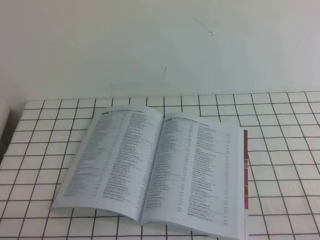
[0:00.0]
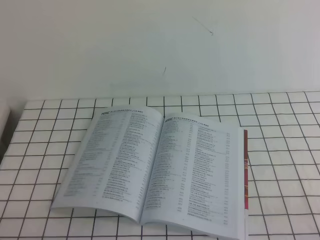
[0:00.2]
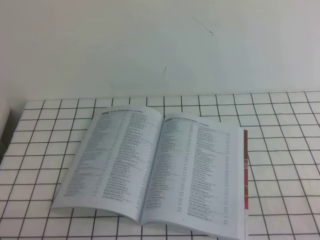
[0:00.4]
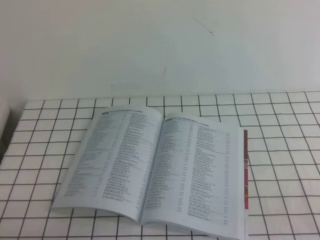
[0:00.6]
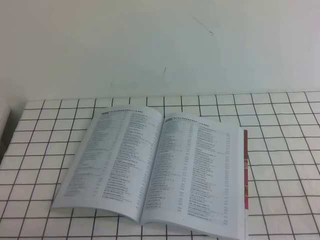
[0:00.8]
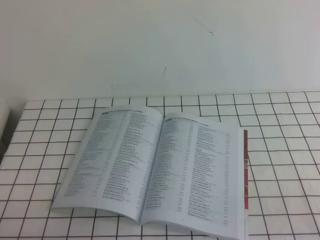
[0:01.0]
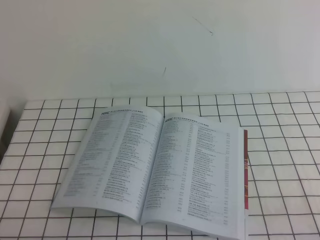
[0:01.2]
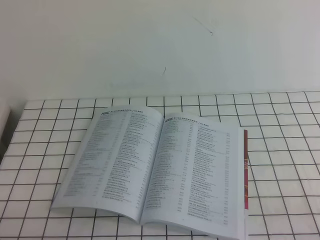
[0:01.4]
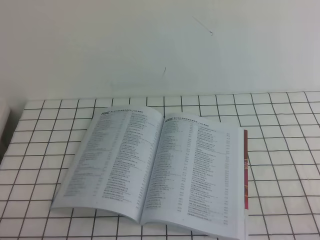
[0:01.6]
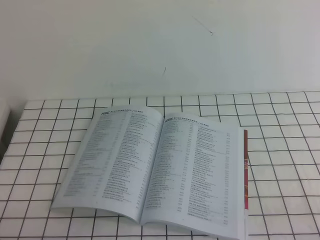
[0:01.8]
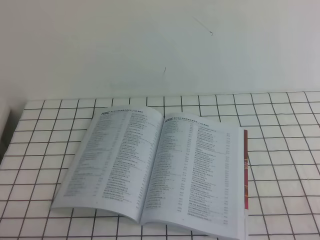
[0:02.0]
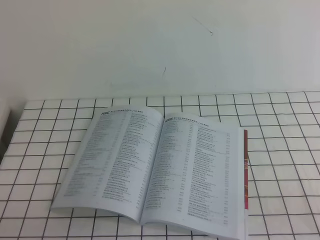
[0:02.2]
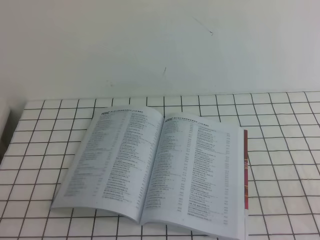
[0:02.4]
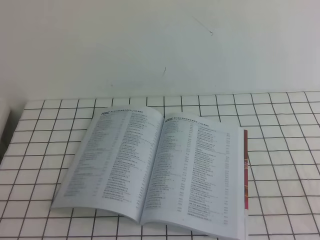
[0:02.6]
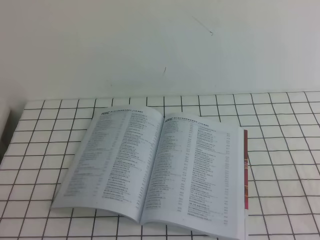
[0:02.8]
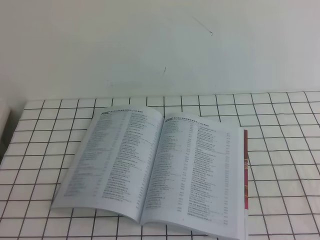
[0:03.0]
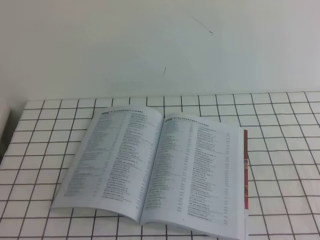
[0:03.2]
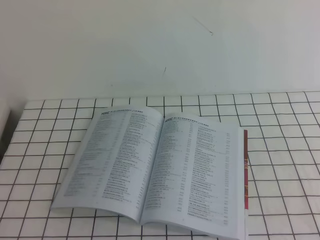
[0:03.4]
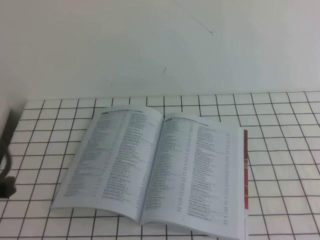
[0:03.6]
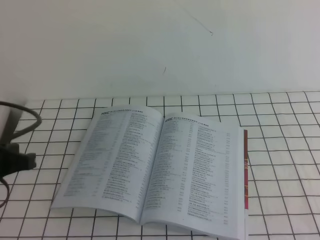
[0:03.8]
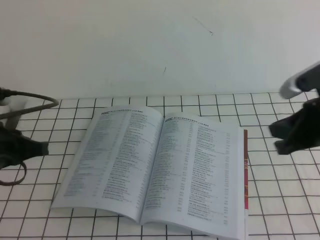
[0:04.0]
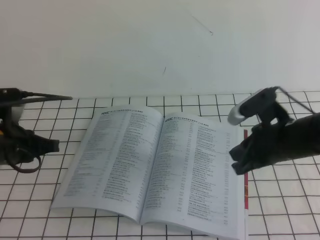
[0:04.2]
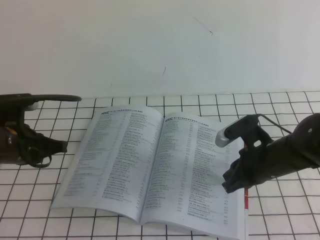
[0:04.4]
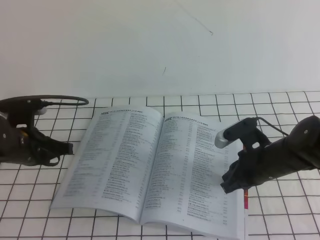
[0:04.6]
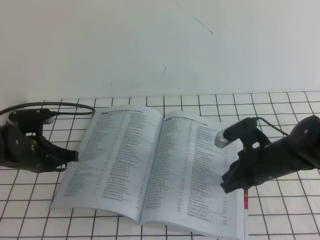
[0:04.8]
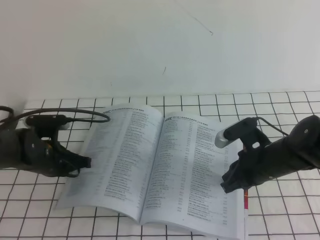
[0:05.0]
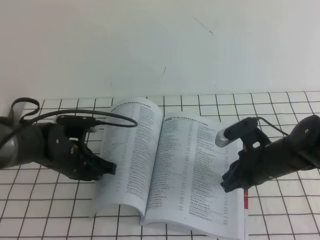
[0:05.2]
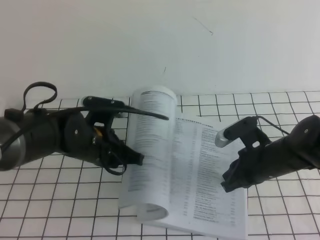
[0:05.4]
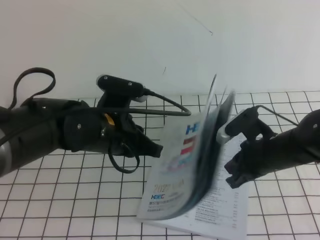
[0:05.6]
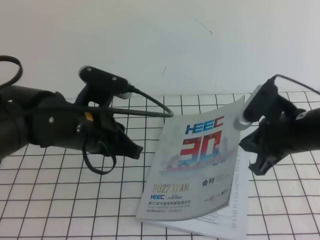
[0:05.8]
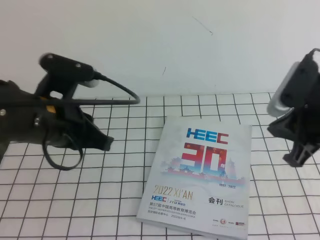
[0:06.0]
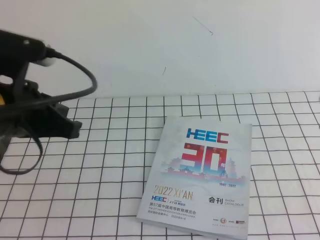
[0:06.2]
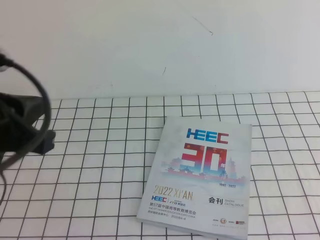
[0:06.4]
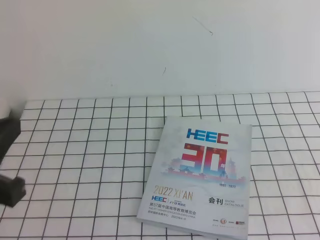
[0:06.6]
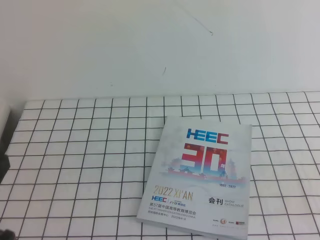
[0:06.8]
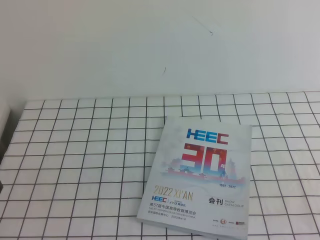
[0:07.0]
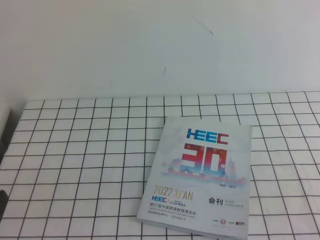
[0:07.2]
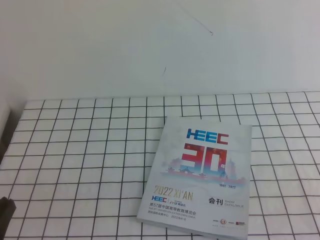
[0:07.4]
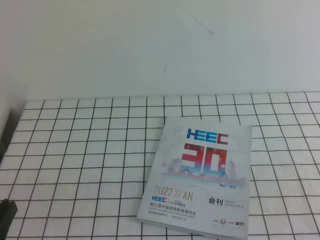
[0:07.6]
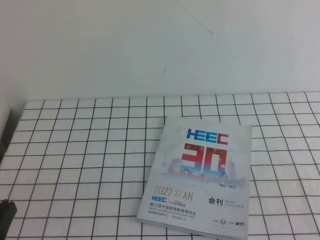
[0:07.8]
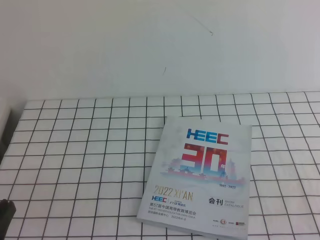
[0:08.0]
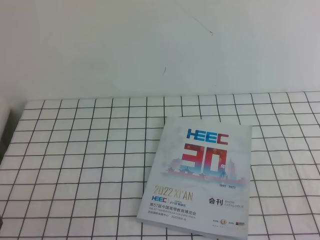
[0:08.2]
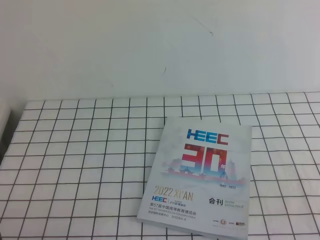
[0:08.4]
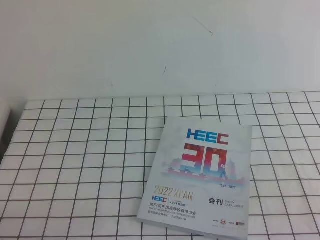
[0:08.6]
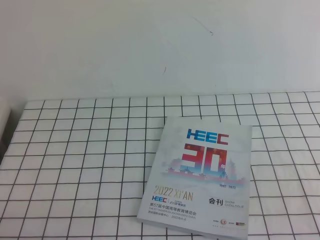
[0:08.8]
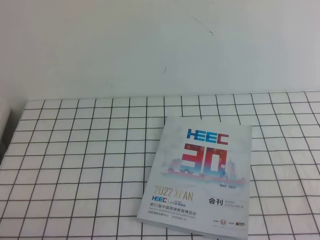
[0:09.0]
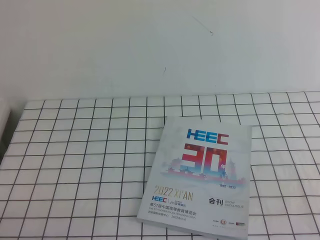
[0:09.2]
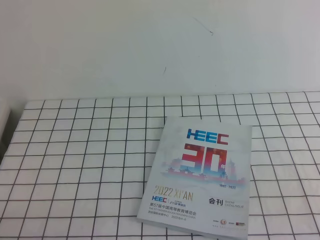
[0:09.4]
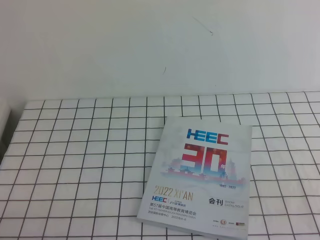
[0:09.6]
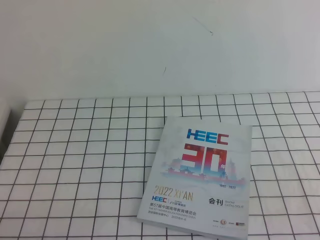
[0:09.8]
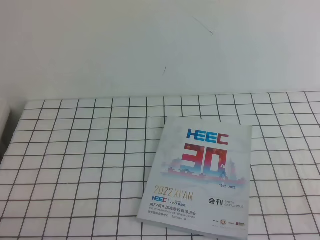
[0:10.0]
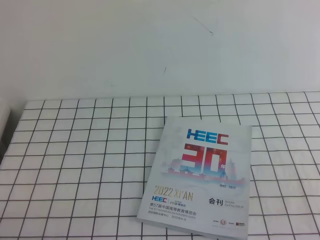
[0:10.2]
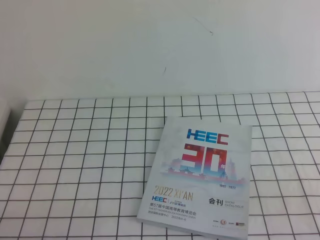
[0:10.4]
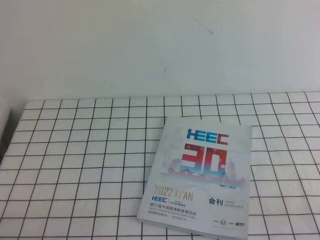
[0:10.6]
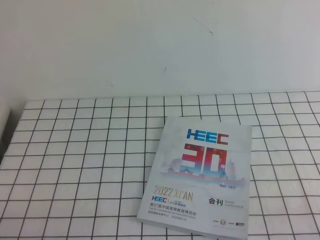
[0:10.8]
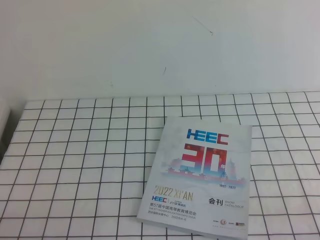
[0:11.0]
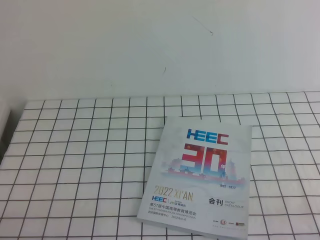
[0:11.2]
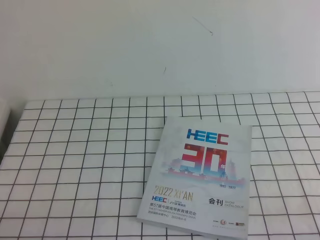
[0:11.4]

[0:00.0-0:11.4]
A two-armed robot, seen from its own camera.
Task of the whole recording: on the white tablecloth, hold the book with one hand and close it with the other.
Step, 0:00.0 to 0:11.4: Close the open book.
0:02.8 to 0:04.2: The right gripper shifts approximately 30 cm forward and to the left, while the left gripper heads forward, covering some 25 cm.
0:04.2 to 0:05.6: The left gripper shifts some 15 cm to the right.
0:05.6 to 0:07.2: The left gripper is displaced backward and to the left by some 25 cm. Meanwhile the right gripper travels backward, to the right and upward by about 30 cm.
0:08.6 to 0:10.0: Neither gripper changes place.

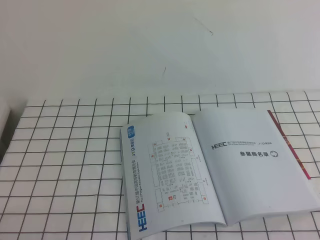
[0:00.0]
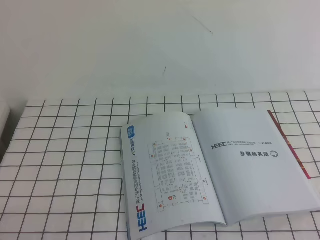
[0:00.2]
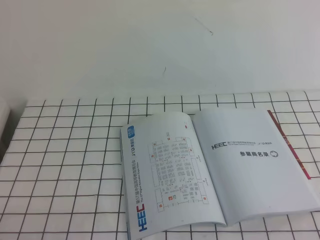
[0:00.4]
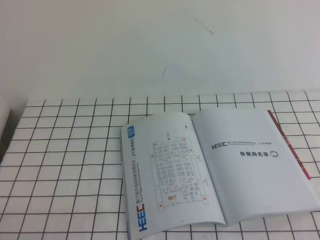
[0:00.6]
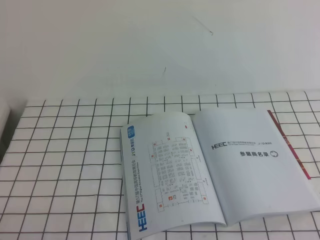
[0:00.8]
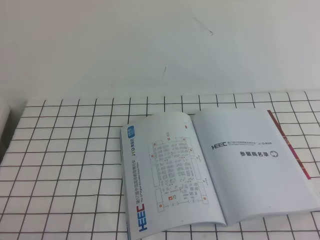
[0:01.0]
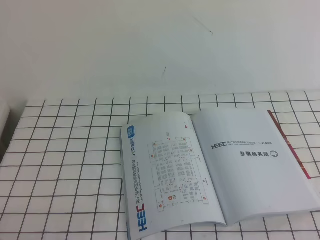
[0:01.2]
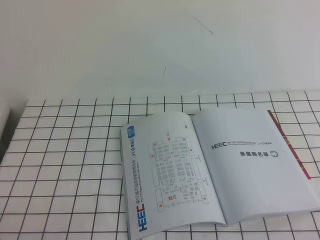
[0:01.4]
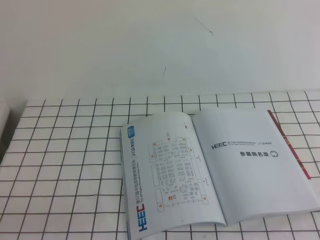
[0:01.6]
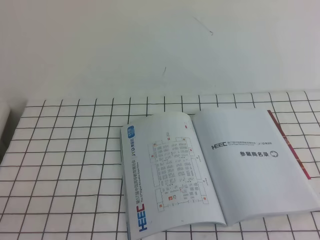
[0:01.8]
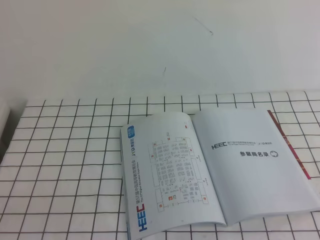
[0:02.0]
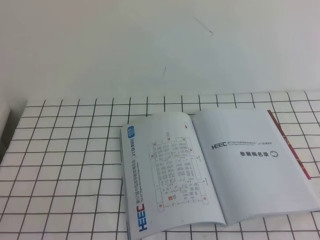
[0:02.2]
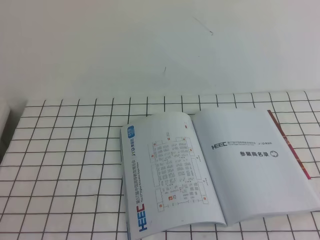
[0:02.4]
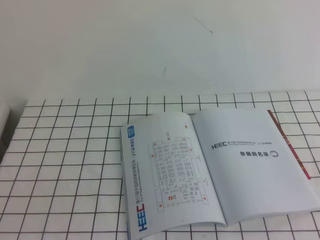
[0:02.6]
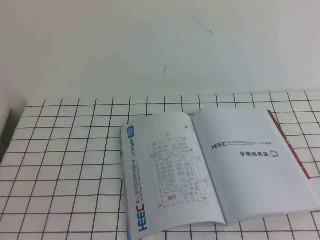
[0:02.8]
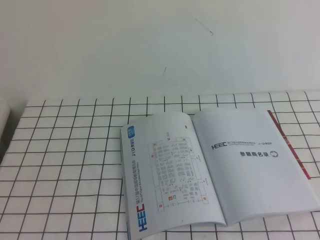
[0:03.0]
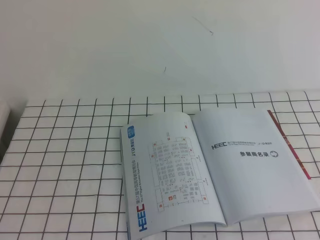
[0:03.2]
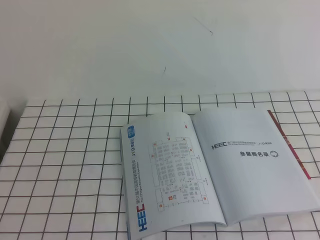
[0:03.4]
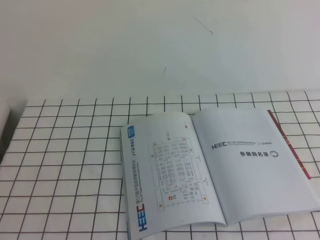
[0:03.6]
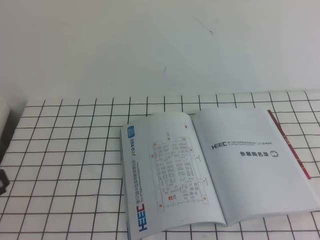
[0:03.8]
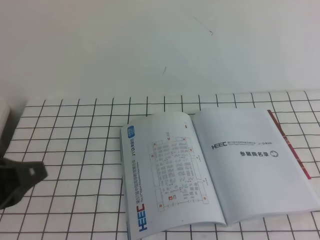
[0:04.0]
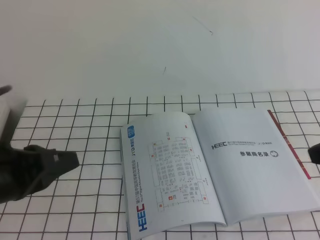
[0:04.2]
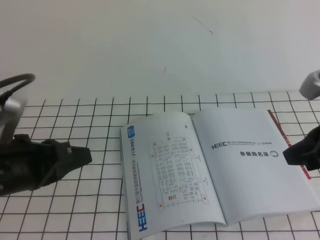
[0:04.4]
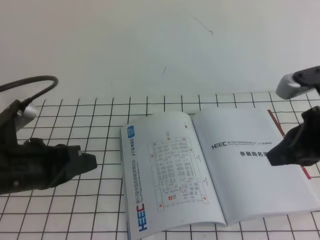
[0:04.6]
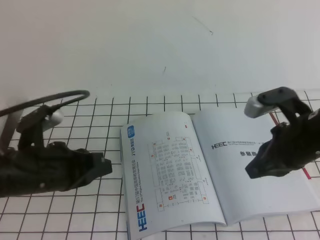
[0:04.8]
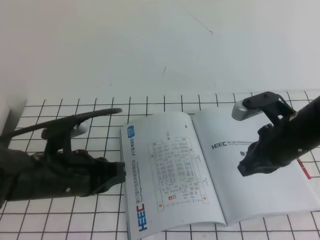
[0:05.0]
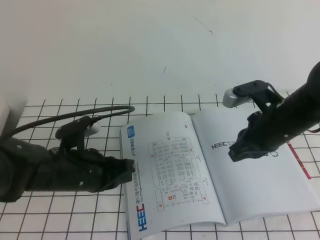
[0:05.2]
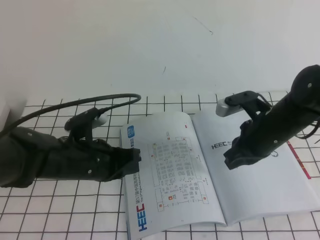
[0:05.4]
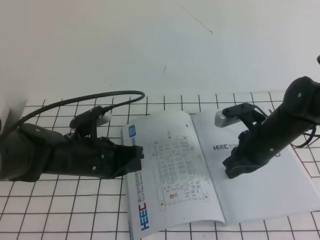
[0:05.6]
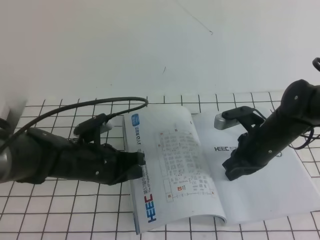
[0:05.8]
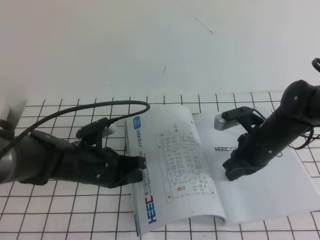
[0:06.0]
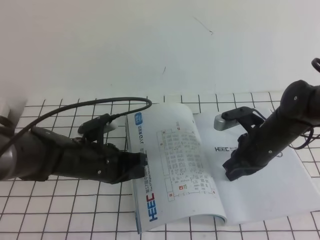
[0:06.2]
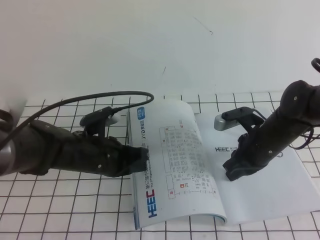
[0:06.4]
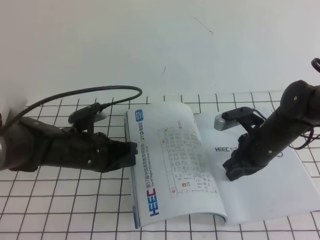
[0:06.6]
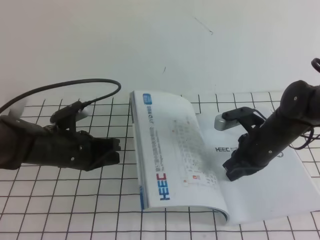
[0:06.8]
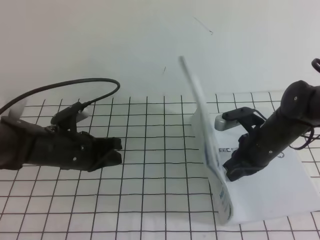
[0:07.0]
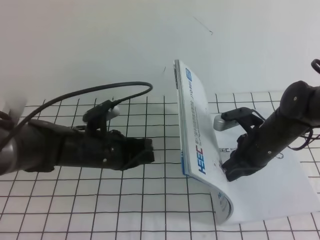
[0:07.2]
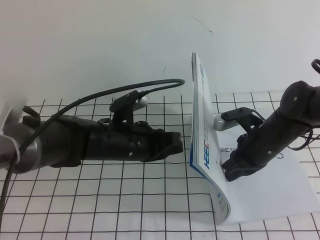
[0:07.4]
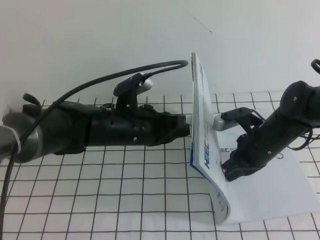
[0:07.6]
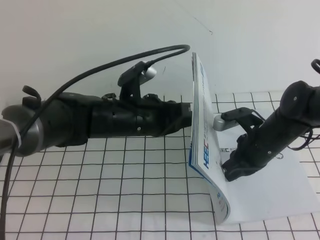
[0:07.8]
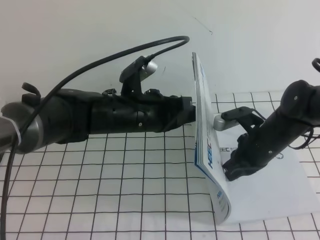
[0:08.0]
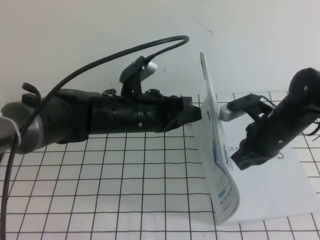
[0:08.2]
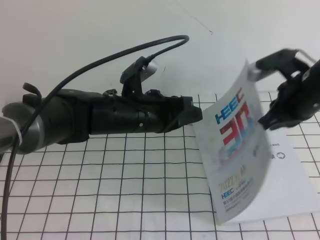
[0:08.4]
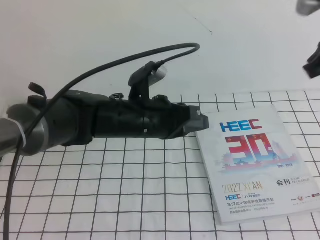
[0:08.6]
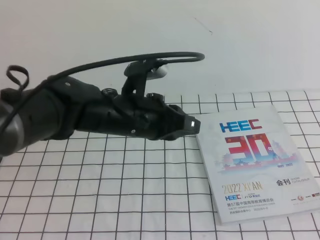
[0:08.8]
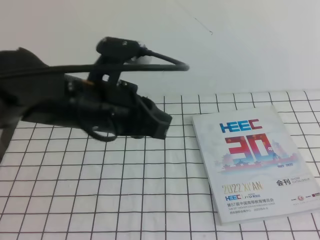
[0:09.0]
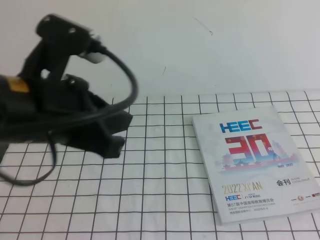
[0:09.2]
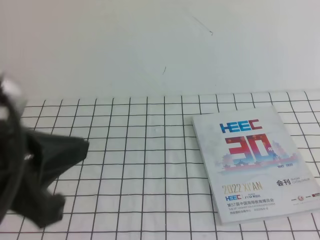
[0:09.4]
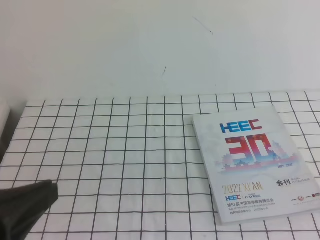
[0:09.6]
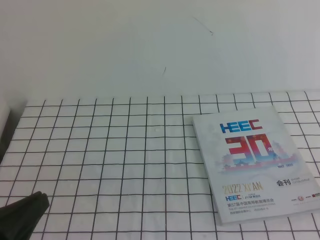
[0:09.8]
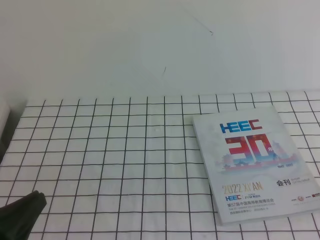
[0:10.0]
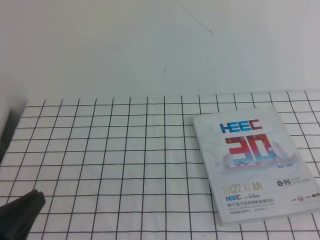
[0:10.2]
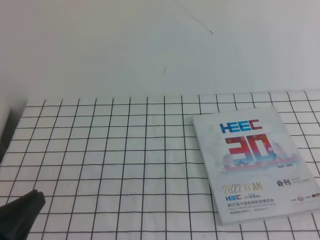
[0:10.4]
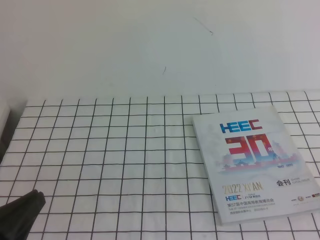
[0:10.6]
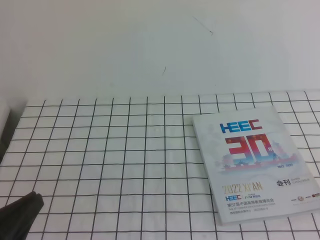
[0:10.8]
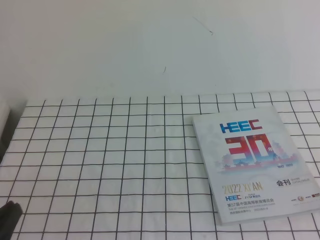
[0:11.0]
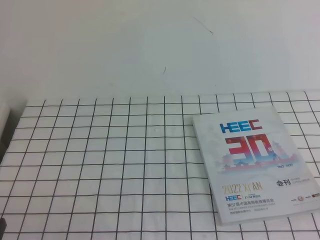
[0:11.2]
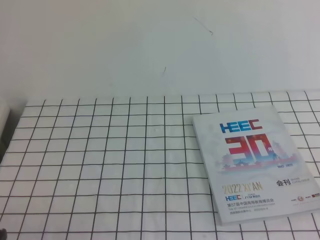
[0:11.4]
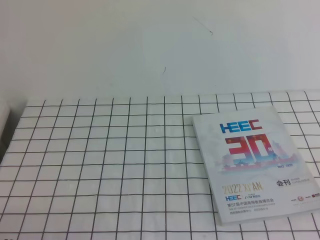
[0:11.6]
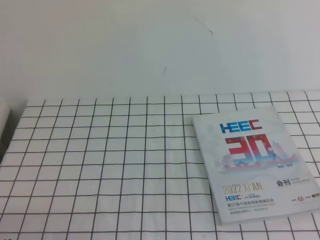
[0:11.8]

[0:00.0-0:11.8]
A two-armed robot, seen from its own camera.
Task of the whole recording: on the white tablecloth, hold the book with one hand and close it with the other.
0:03.0 to 0:04.4: Both grippers move forward and downward, about 25 cm.
0:04.4 to 0:06.0: The left gripper travels downward, forward and to the right by about 20 cm. Meanwhile the right gripper is displaced downward and forward by about 20 cm.
0:06.0 to 0:07.4: The left gripper moves roughly 5 cm.
0:07.4 to 0:08.8: The right gripper is displaced upward by roughly 30 cm. The left gripper moves upward, some 10 cm.
0:08.8 to 0:10.4: The left gripper heads backward and to the left, covering some 30 cm, while the right gripper heads backward and downward, covering approximately 25 cm.
0:10.4 to 0:11.8: The left gripper heads downward, covering some 10 cm.
